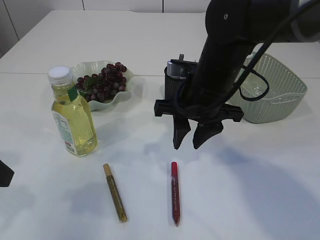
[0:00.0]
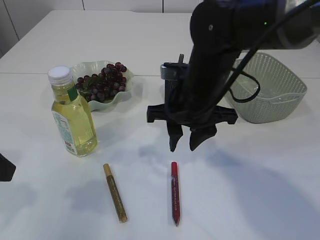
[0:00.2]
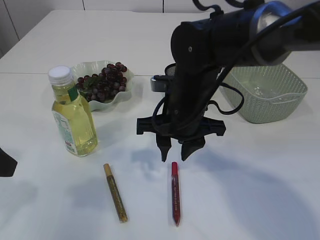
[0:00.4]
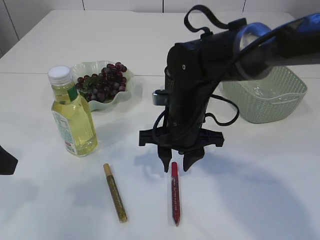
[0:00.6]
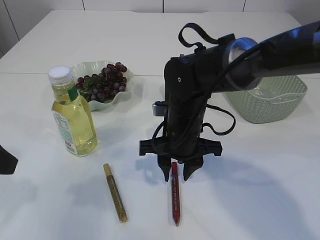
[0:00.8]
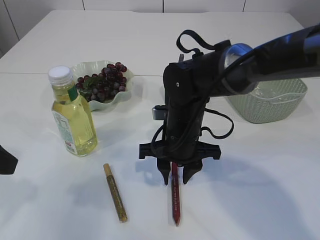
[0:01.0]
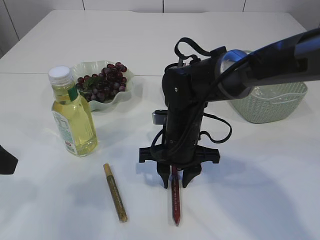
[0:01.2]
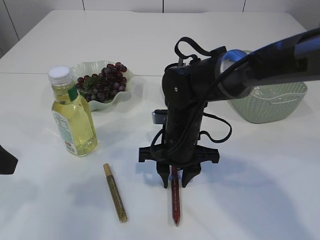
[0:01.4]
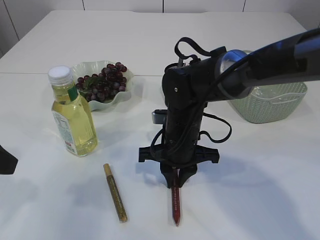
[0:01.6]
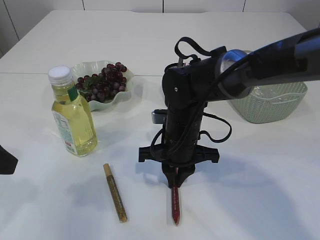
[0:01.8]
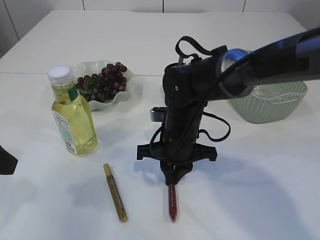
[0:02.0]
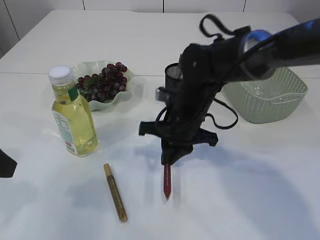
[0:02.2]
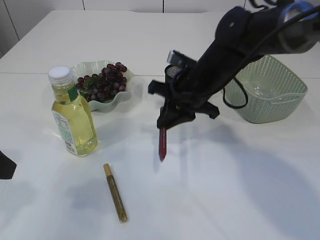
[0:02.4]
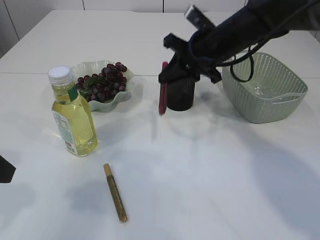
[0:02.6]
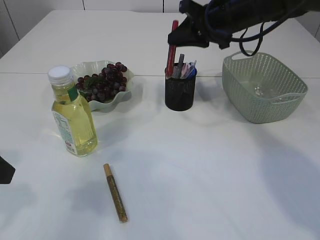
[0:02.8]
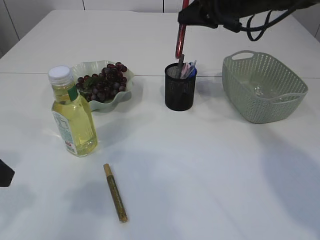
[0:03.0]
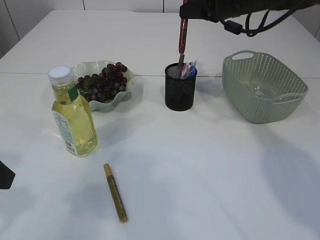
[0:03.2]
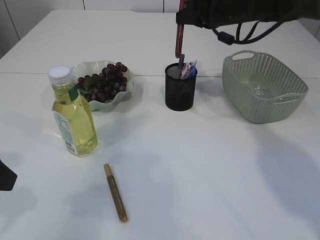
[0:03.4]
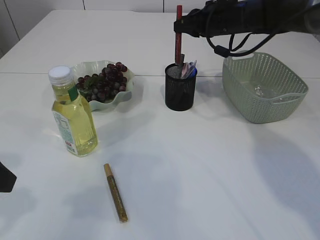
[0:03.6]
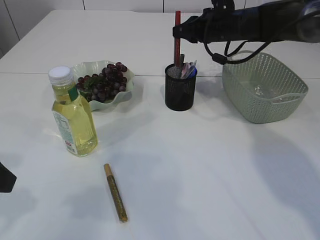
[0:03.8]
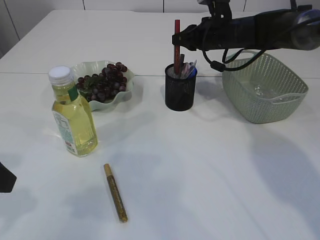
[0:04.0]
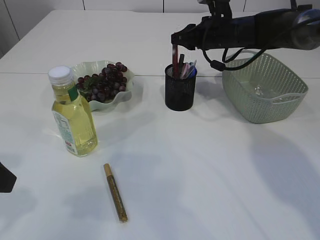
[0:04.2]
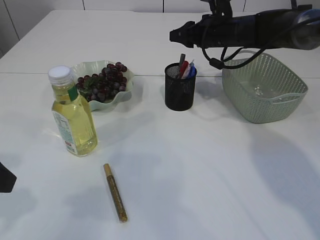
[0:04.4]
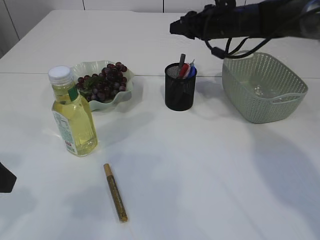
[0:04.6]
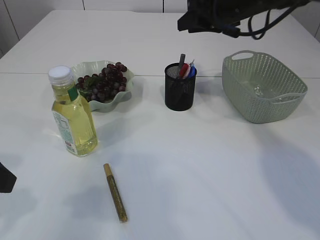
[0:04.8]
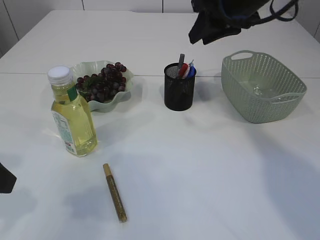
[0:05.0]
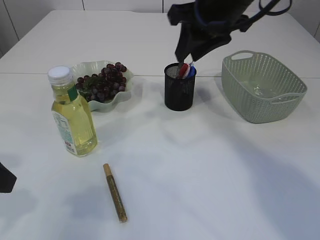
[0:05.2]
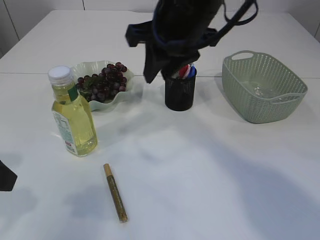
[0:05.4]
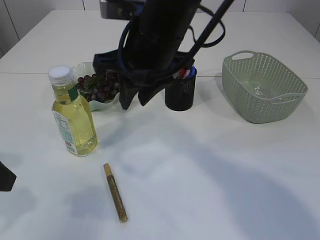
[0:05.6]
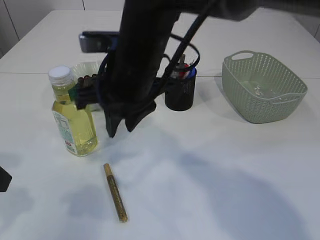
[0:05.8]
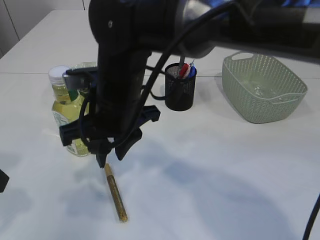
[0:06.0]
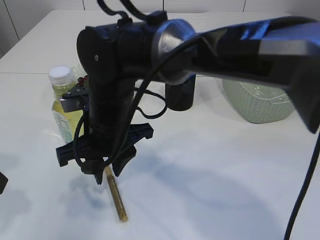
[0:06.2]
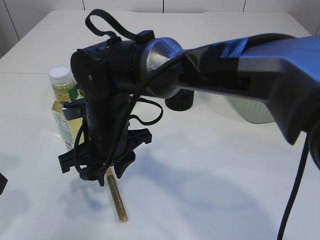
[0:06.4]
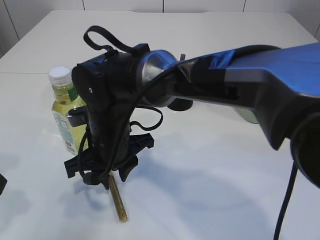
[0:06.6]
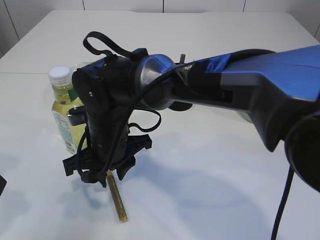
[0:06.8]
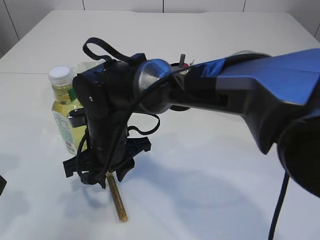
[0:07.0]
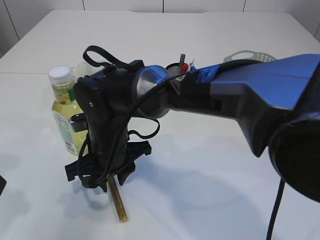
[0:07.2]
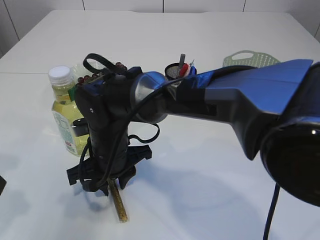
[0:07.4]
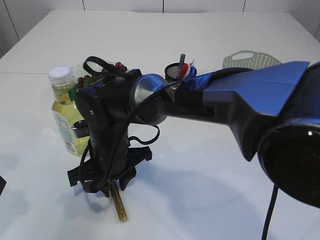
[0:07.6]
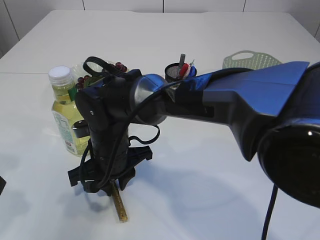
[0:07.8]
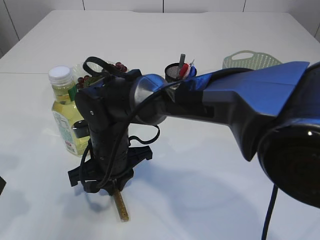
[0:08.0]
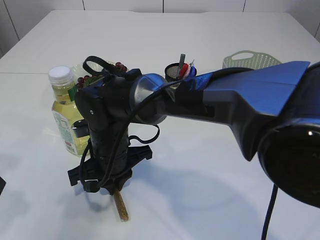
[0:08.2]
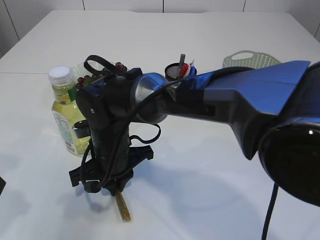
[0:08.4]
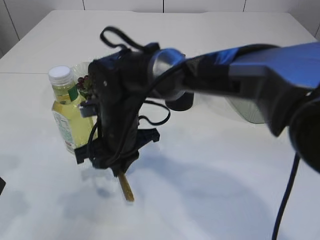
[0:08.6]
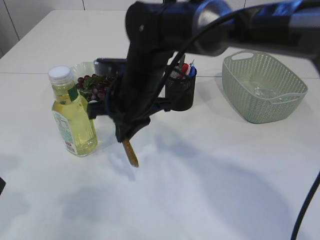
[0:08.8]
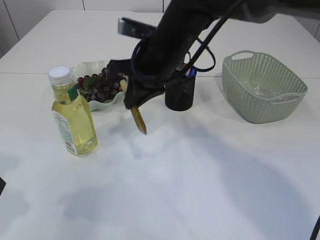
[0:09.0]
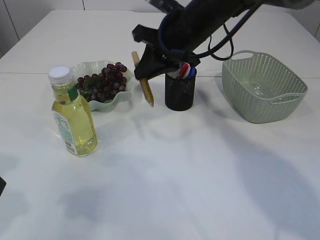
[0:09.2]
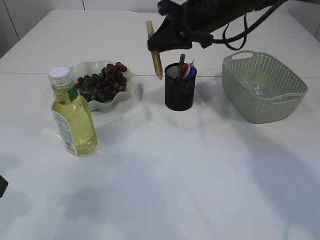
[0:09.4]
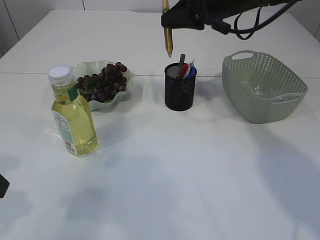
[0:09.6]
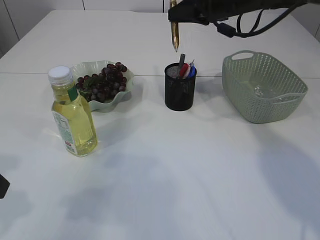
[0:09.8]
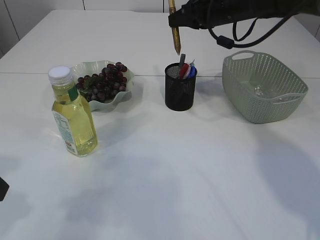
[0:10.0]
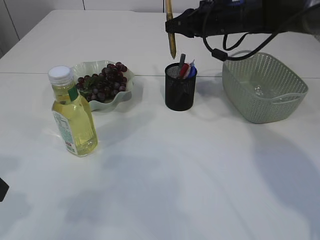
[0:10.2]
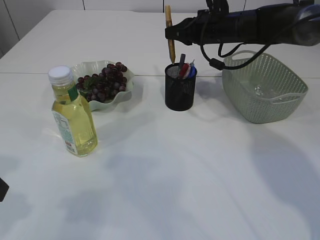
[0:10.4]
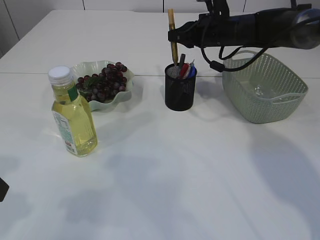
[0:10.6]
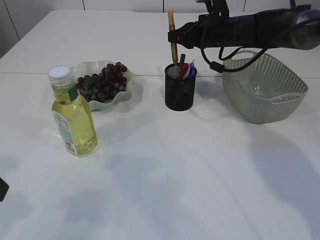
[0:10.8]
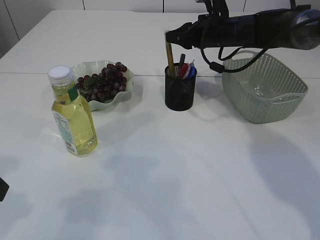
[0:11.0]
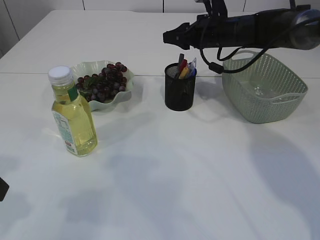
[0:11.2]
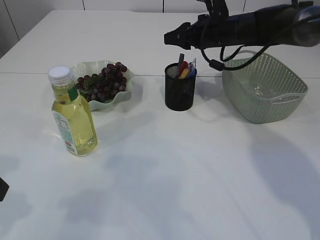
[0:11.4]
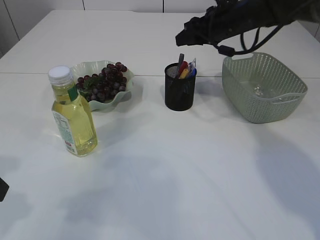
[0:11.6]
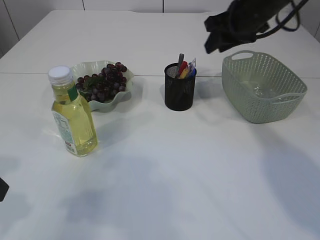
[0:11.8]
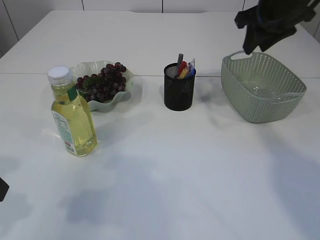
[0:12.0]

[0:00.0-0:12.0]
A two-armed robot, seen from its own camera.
Step, 0:00.0 to 0:02.2: pick up the red glue.
Step, 0:02.4 to 0:04.6: place the red glue into the pen holder.
Step, 0:04.8 to 0:08.6: pick up the yellow glue.
Step, 0:08.8 to 0:11.4: place the yellow glue into the pen holder.
0:00.0 to 0:01.6: The right gripper is displaced downward by some 10 cm.
0:01.6 to 0:03.0: The right gripper heads upward, forward and to the right, covering about 25 cm.
0:03.0 to 0:04.4: The right gripper is displaced downward and forward by about 10 cm, and opens.
0:04.4 to 0:06.0: The right gripper goes approximately 30 cm backward and to the left.
0:06.0 to 0:07.6: The right gripper travels downward by about 10 cm.
0:07.6 to 0:09.0: The right gripper moves upward, to the right and forward, roughly 15 cm, and closes up.
0:09.0 to 0:10.4: The right gripper goes about 20 cm forward and to the right.
0:10.4 to 0:12.0: The right gripper moves backward, upward and to the right, approximately 15 cm, and opens its fingers.

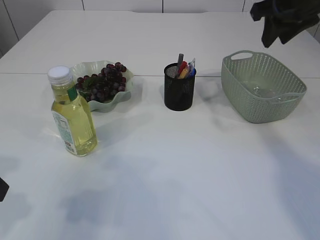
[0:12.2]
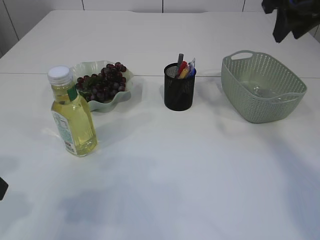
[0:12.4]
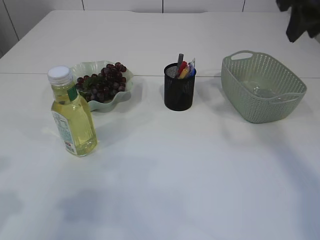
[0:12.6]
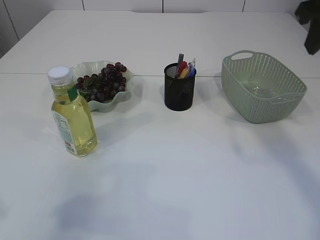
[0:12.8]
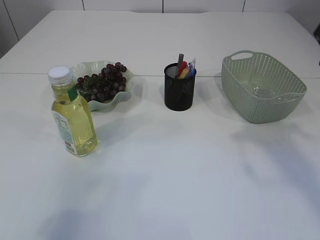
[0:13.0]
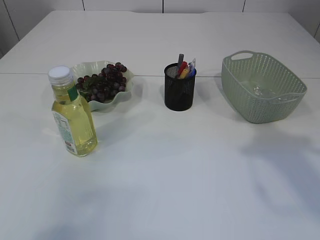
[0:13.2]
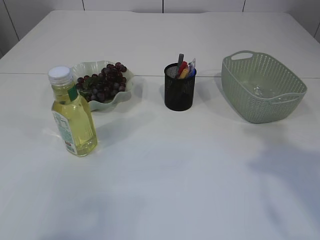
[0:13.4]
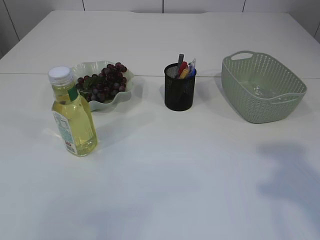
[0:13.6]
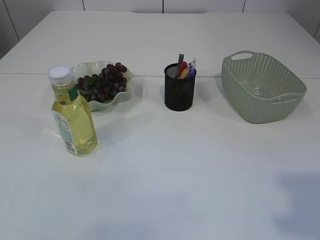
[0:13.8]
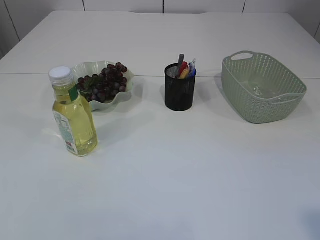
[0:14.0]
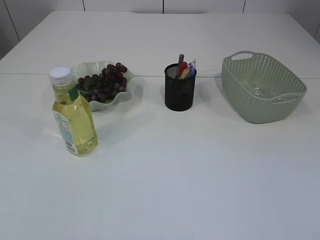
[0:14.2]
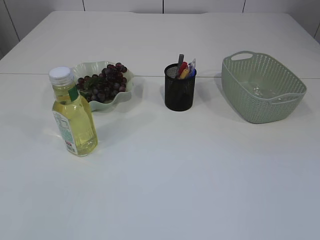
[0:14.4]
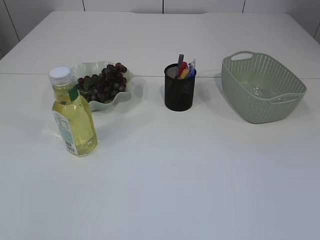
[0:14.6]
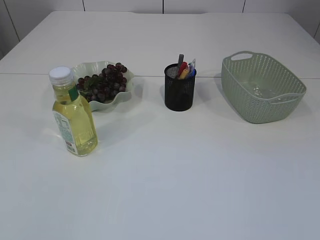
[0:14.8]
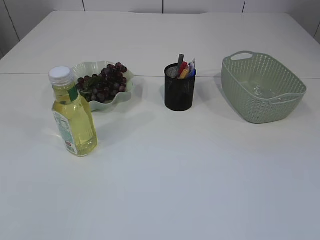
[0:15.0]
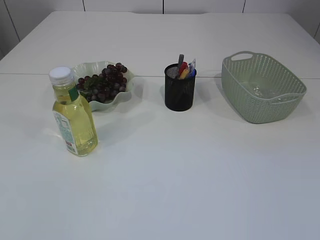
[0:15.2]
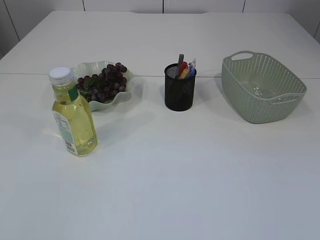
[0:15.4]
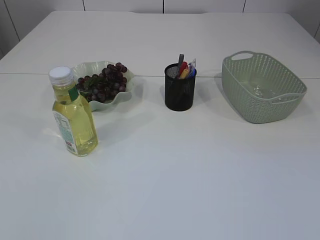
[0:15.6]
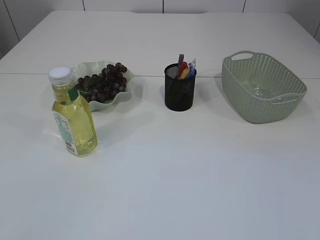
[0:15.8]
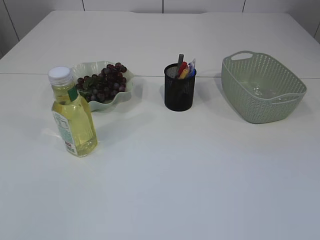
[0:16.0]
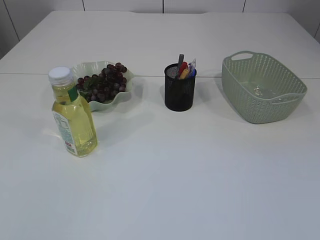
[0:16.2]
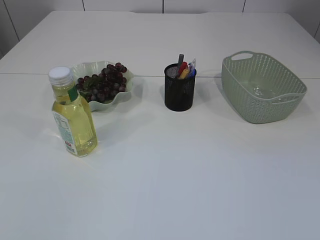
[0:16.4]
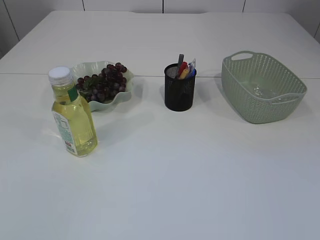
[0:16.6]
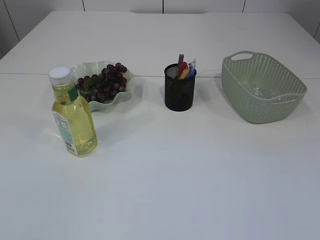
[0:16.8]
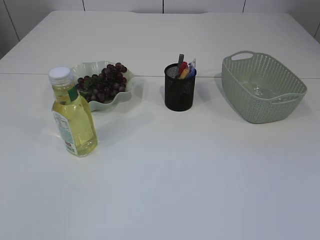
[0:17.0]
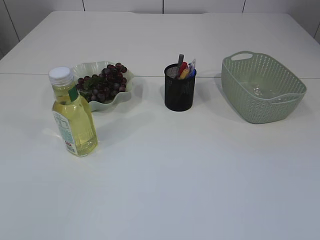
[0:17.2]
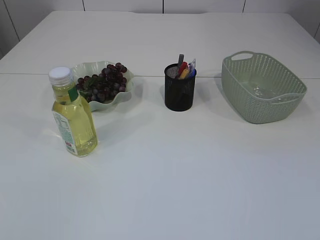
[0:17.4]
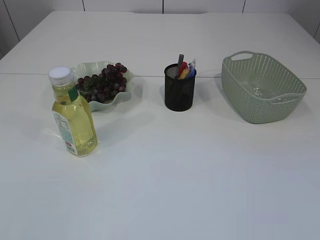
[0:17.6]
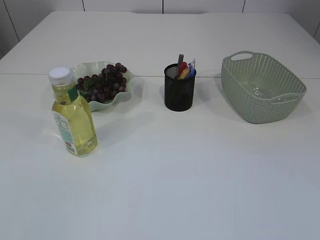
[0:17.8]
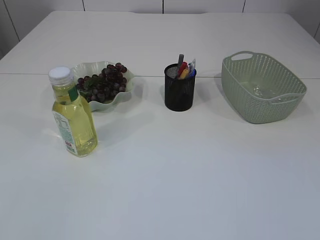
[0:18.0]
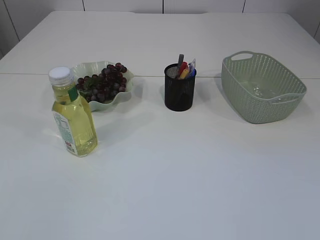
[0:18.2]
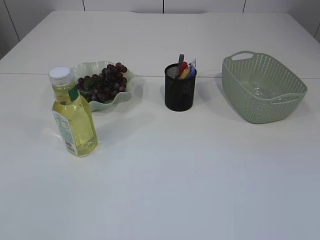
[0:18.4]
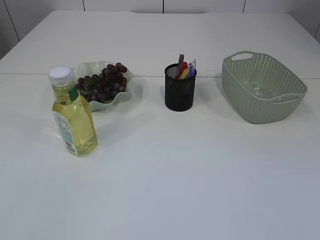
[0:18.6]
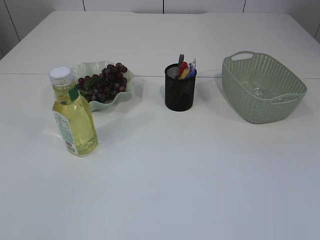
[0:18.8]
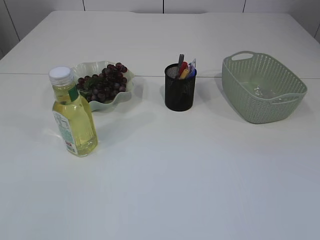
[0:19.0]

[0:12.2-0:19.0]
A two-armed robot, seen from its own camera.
0:12.2 to 0:13.6: The right gripper heads backward, covering some 25 cm.
0:13.6 to 0:15.0: The right gripper travels backward by about 20 cm.
0:16.2 to 0:17.6: Both grippers stay about where they are.

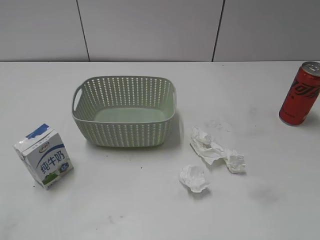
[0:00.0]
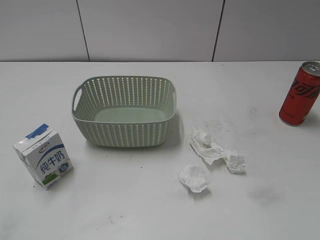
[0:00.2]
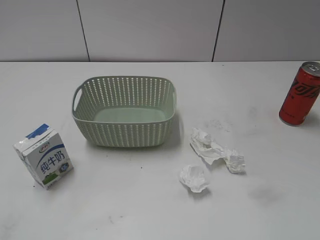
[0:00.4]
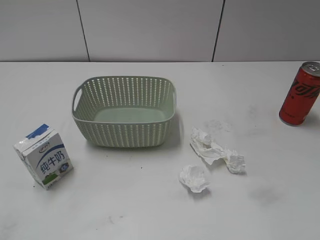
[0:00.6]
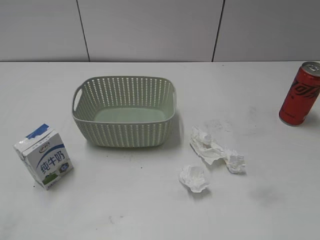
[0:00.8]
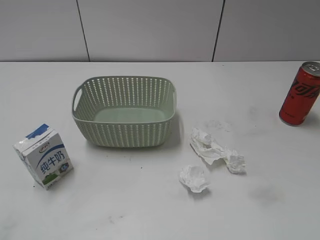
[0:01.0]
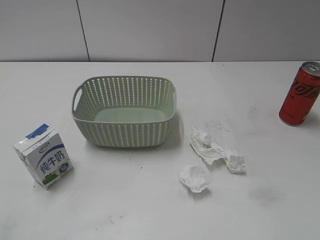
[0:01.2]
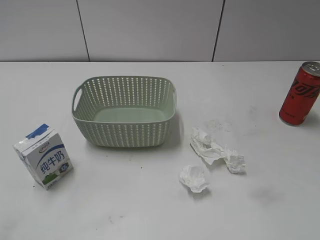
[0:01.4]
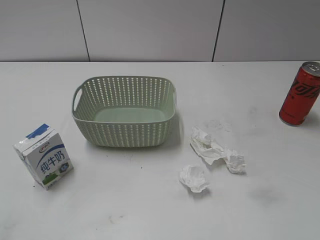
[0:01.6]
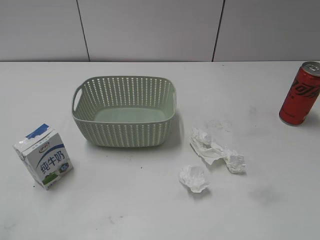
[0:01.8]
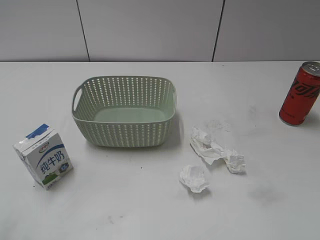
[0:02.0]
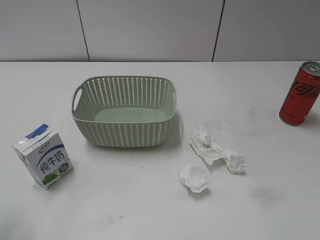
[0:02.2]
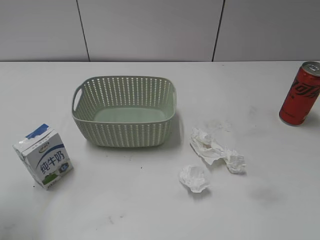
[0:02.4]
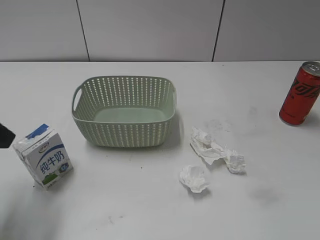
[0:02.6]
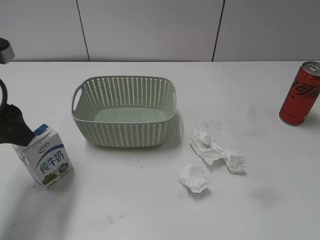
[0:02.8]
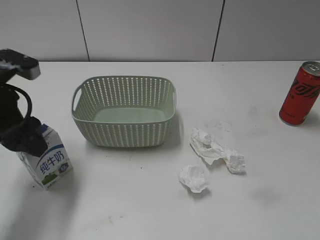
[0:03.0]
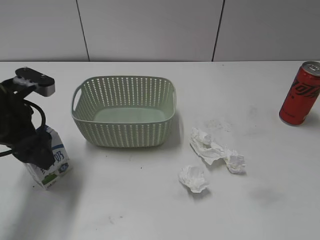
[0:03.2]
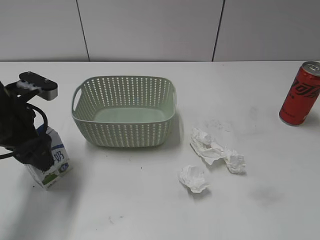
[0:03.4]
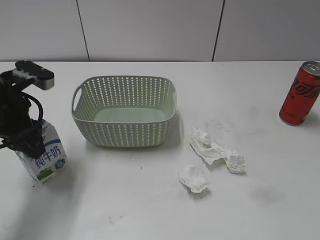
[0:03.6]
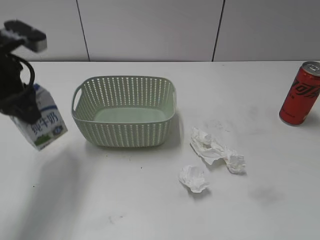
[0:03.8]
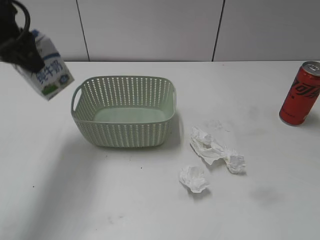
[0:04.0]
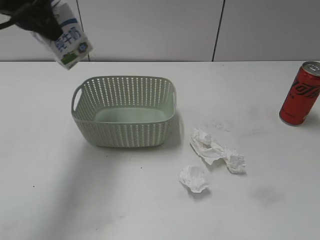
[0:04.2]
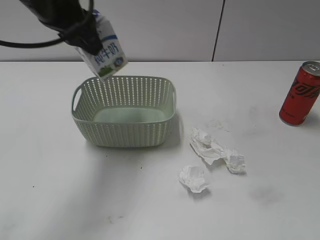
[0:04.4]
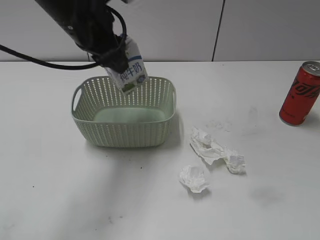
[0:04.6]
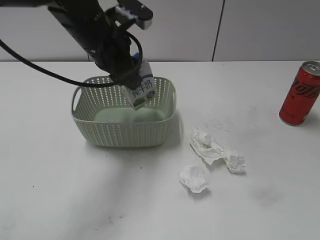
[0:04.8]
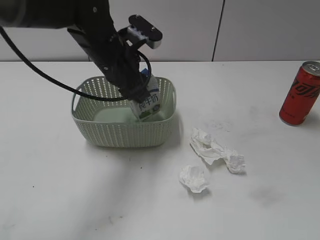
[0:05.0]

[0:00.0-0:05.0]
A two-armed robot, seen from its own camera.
Step, 0:02.6 to 0:03.4: Grasp the milk with left gripper.
0:01.6 to 0:03.4: The left gripper is displaced forward by some 25 cm.
0:03.4 to 0:05.0: The left gripper travels to the right and forward by some 20 cm, reaches approximately 20 cm upward, then returns, and closes.
